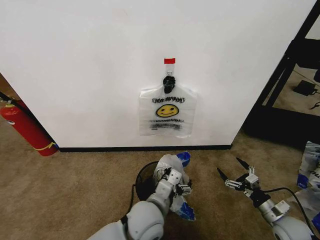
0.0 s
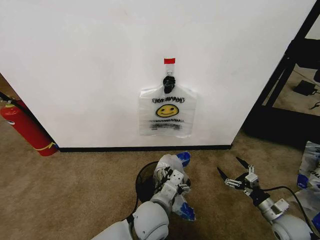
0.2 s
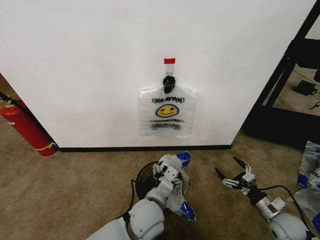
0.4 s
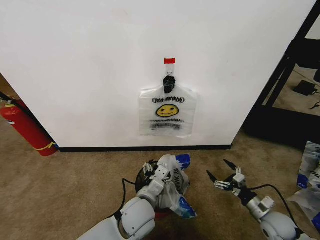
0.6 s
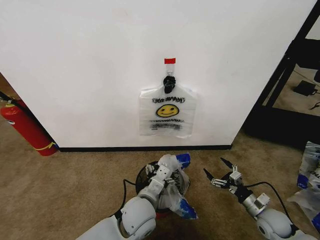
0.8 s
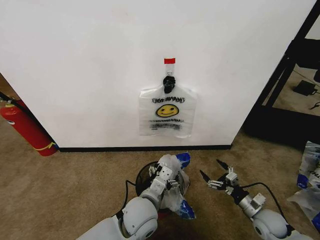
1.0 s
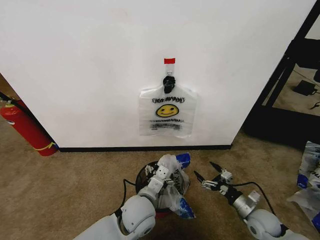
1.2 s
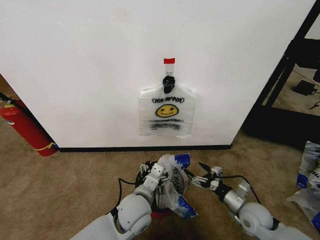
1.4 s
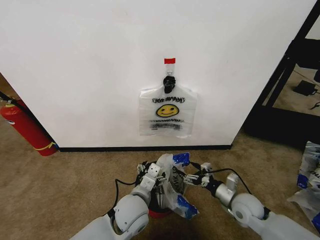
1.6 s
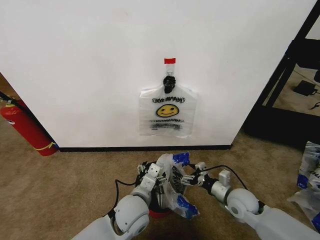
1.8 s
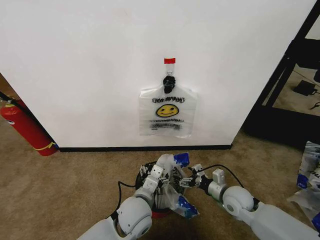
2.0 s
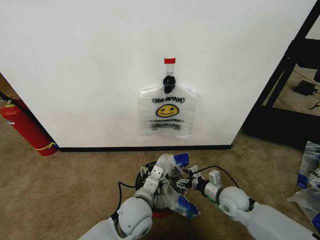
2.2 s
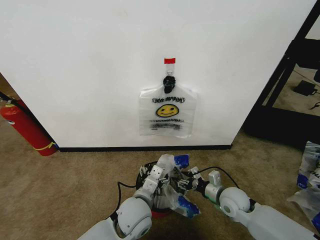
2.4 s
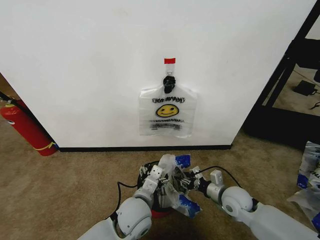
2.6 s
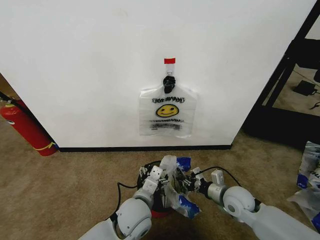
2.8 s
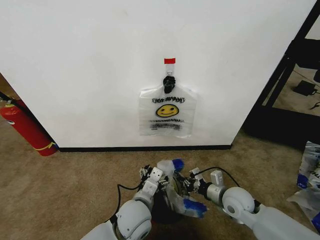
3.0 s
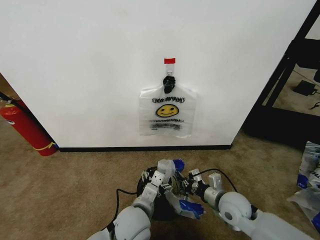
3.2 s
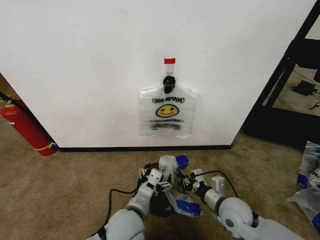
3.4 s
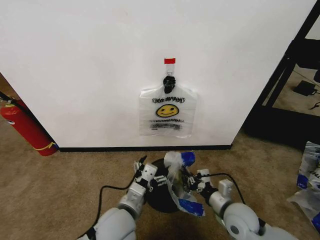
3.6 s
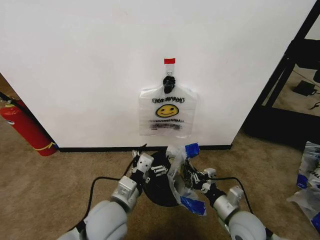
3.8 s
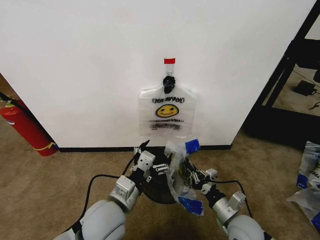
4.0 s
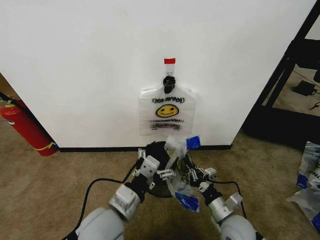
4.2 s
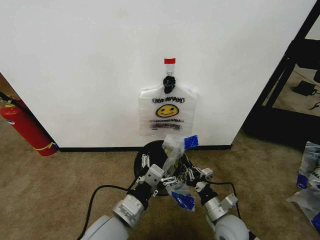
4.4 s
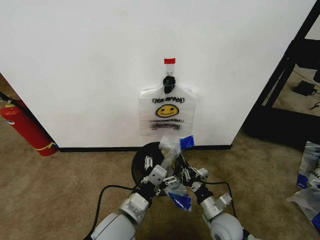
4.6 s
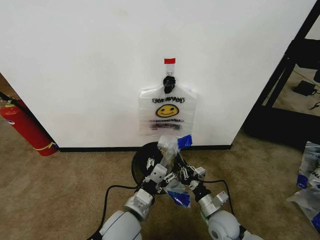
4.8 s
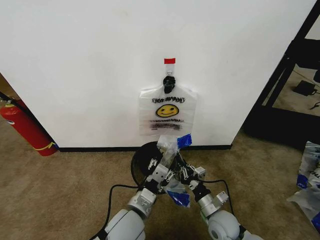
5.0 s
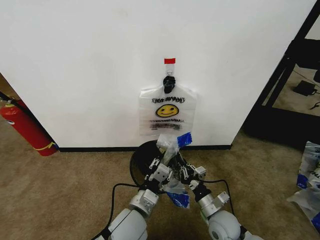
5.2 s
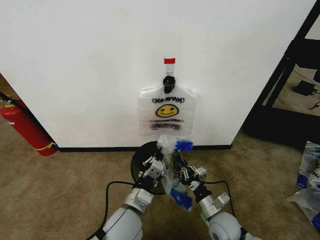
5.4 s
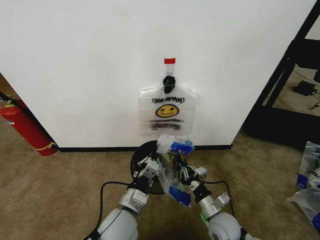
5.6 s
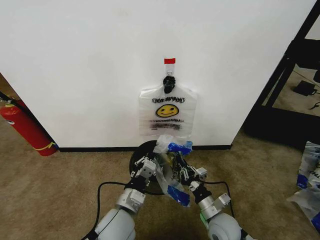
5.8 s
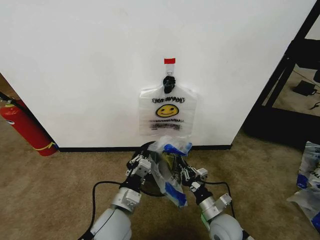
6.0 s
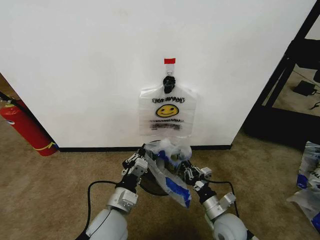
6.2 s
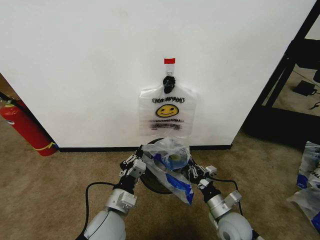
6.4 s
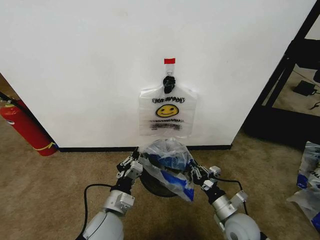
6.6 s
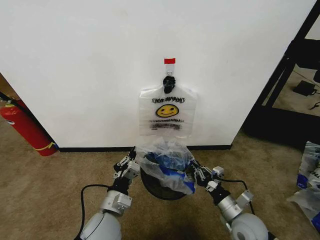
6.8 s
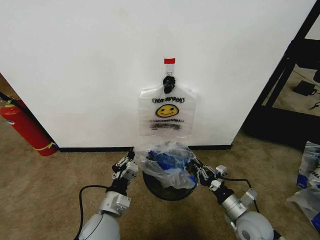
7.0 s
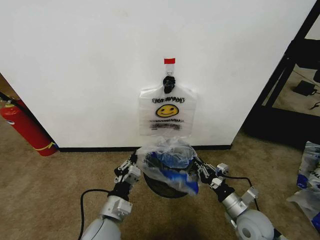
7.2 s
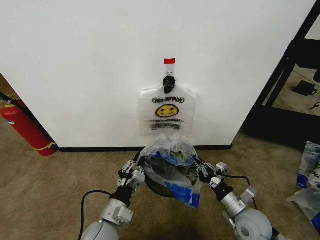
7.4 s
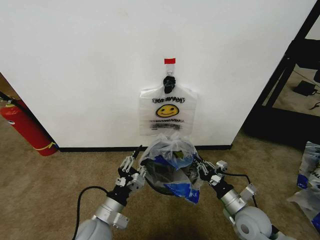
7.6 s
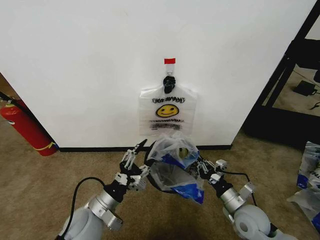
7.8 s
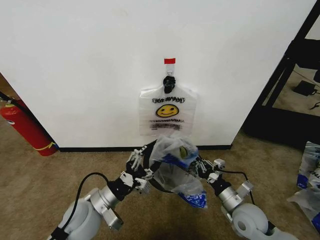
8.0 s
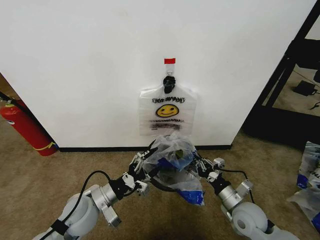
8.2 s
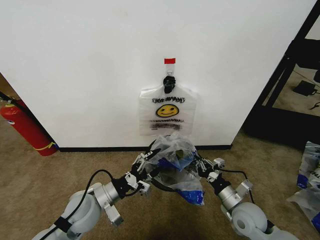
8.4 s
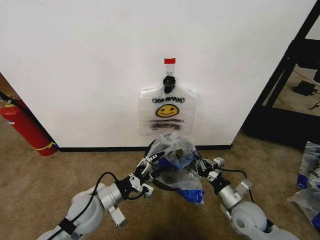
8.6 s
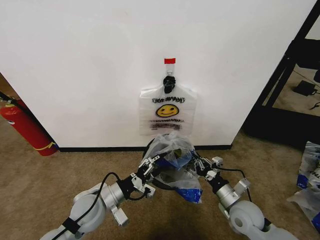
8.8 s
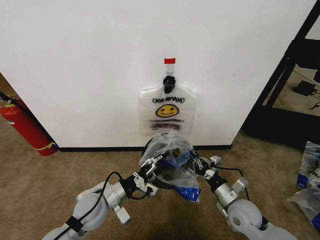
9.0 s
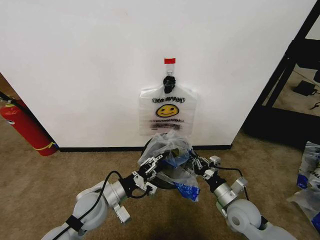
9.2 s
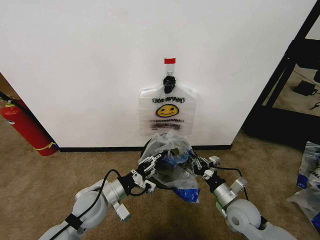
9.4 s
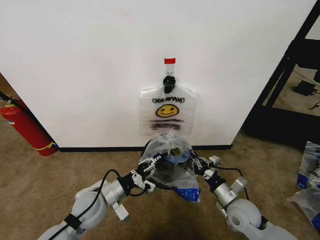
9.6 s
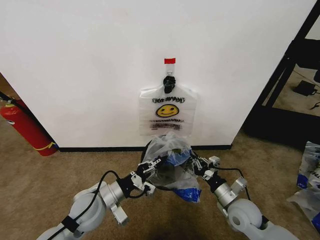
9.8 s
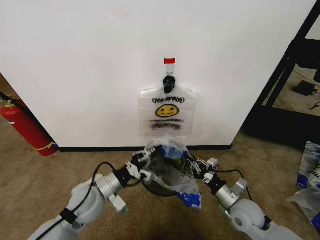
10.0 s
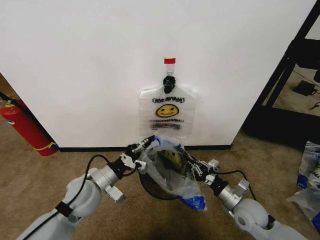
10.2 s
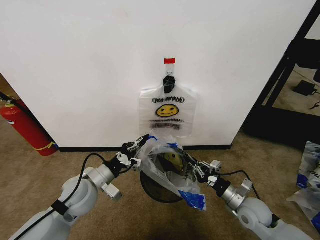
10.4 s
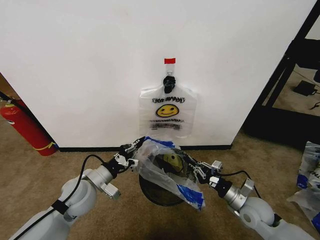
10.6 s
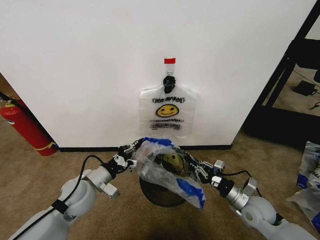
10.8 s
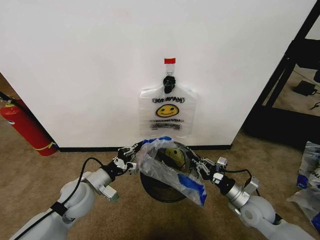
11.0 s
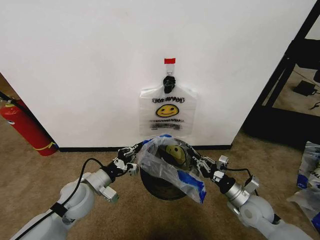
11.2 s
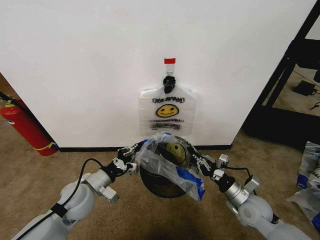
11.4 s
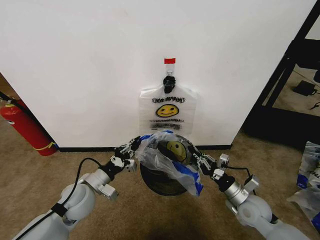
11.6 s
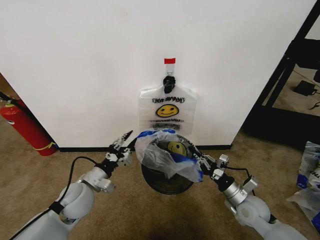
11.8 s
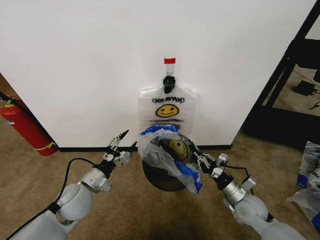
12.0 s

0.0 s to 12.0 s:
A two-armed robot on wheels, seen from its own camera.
Task of the whole recording: Pick up the garbage bag from the wall and place it over the trash bin.
0.0 to 1.6 s: The left gripper ends up approximately 5 cm from where it was. Meanwhile the right gripper moves to the left and forward, about 15 cm.
1.6 to 3.0 s: The right gripper closes its fingers.
3.0 to 4.4 s: The right gripper travels backward by about 10 cm, while the left gripper travels upward, backward and to the left by approximately 10 cm.
4.4 to 6.0 s: The left gripper travels downward by approximately 5 cm, and closes its fingers.
6.0 to 7.6 s: The left gripper is displaced to the left by about 5 cm, and opens its fingers. The right gripper heads to the right, covering some 10 cm.
7.6 to 9.0 s: The left gripper heads forward, covering about 5 cm, and opens.
9.0 to 10.4 s: The left gripper moves approximately 5 cm, and closes up.
10.4 to 12.0 s: The left gripper opens up.

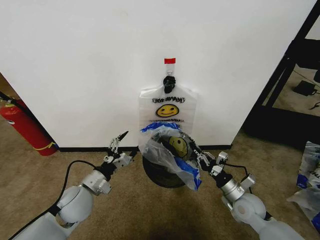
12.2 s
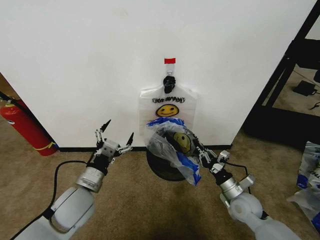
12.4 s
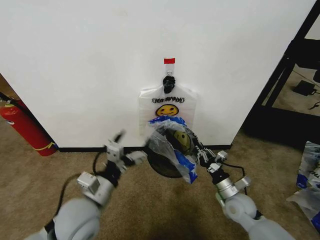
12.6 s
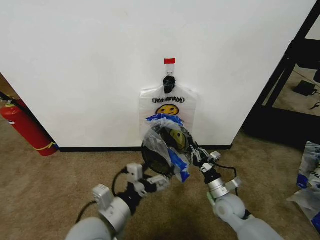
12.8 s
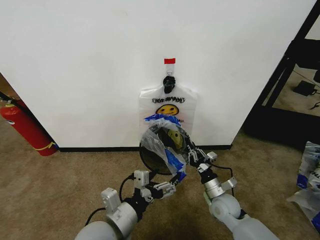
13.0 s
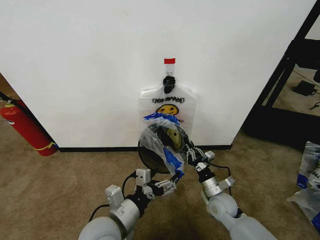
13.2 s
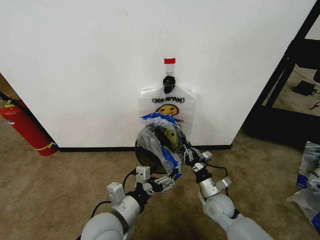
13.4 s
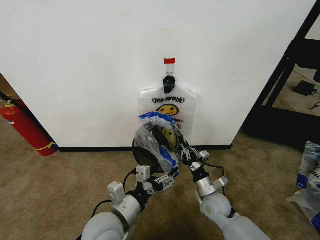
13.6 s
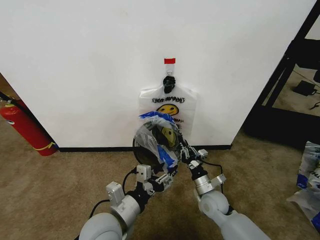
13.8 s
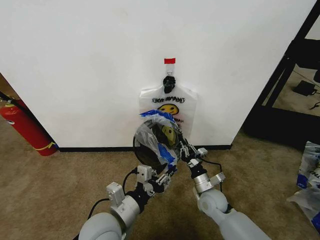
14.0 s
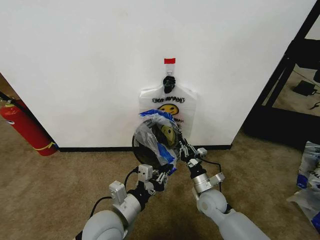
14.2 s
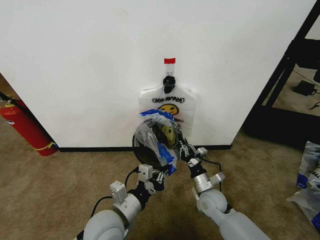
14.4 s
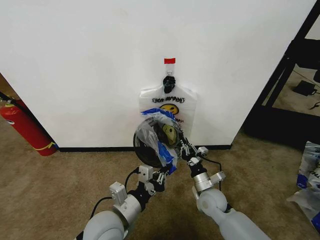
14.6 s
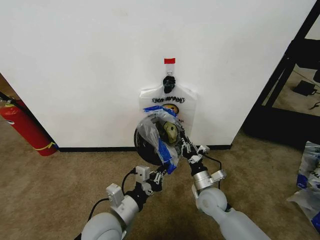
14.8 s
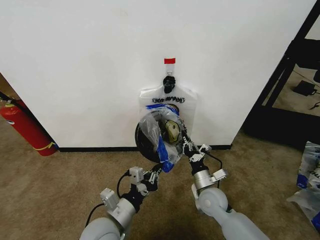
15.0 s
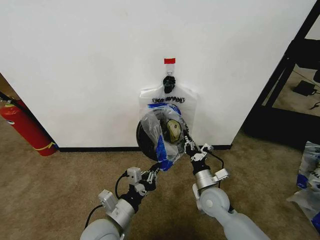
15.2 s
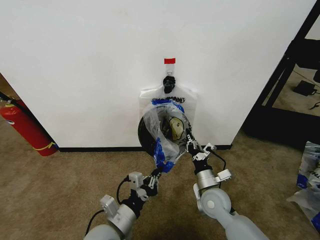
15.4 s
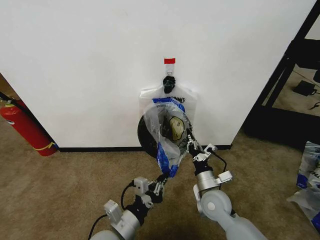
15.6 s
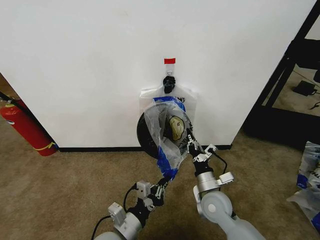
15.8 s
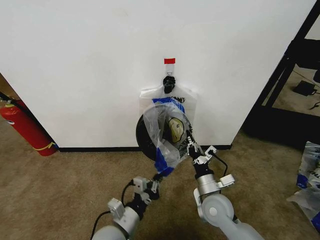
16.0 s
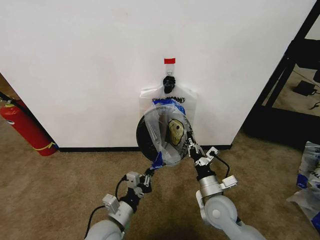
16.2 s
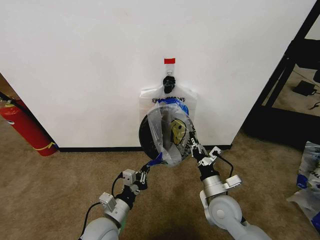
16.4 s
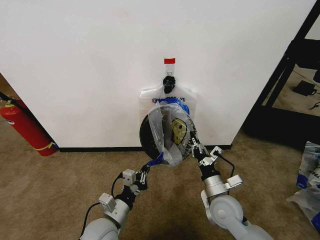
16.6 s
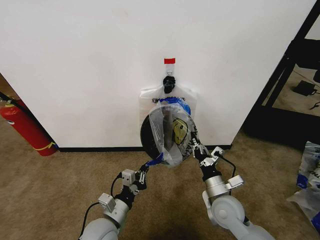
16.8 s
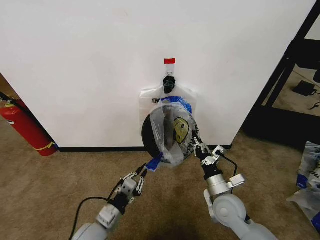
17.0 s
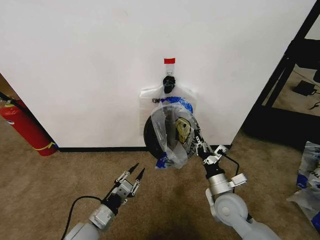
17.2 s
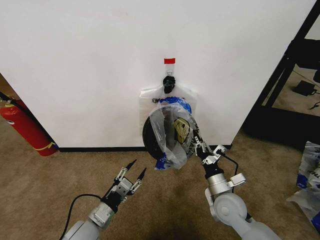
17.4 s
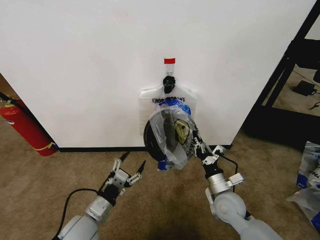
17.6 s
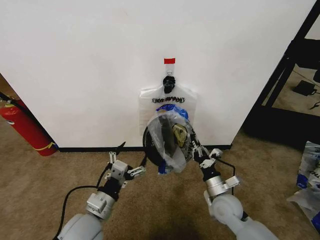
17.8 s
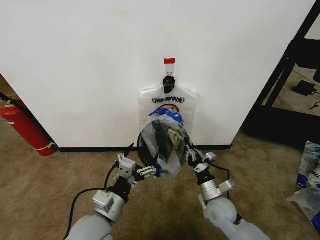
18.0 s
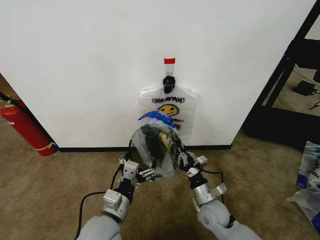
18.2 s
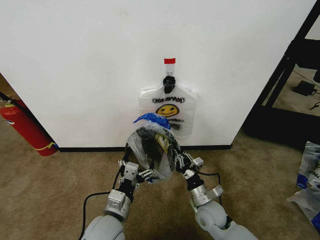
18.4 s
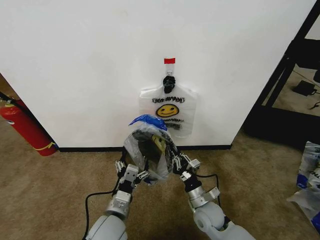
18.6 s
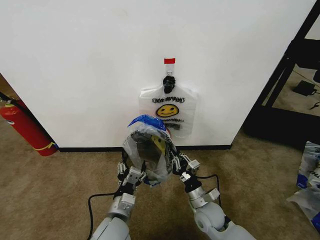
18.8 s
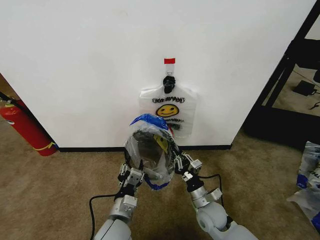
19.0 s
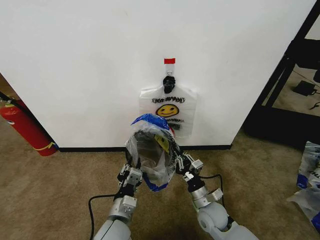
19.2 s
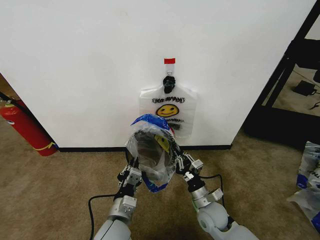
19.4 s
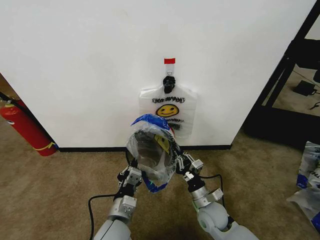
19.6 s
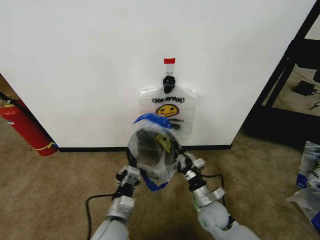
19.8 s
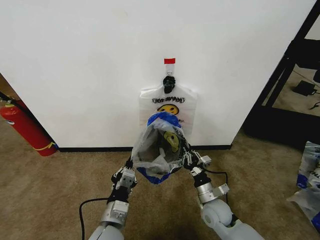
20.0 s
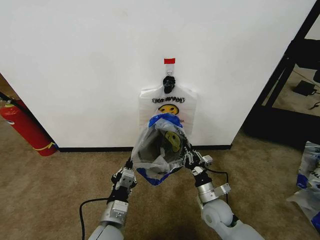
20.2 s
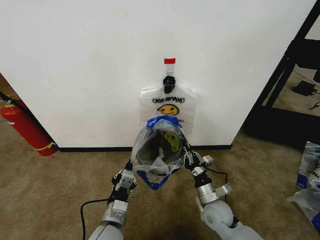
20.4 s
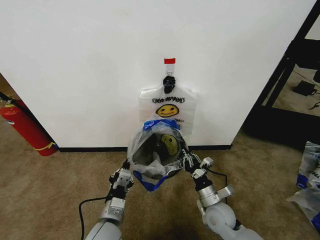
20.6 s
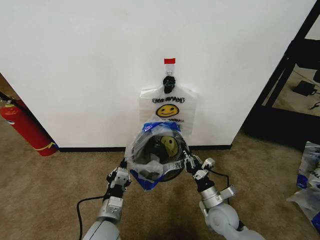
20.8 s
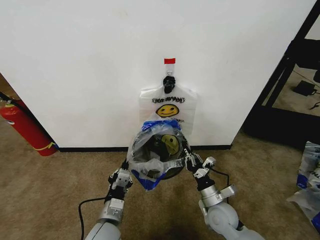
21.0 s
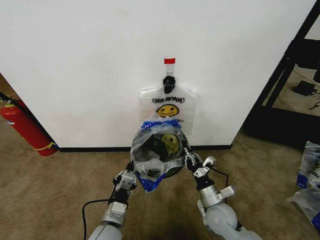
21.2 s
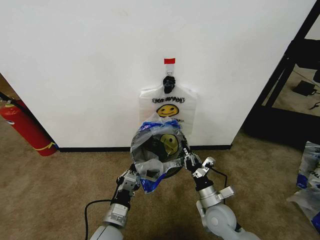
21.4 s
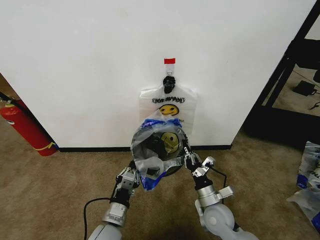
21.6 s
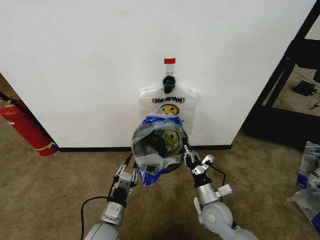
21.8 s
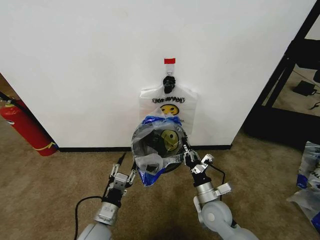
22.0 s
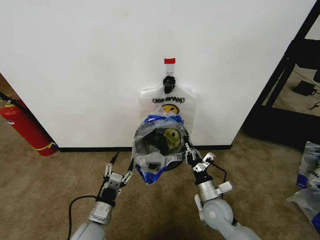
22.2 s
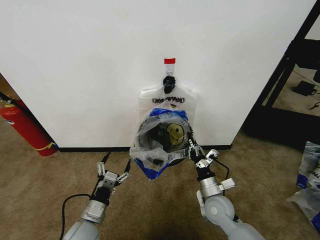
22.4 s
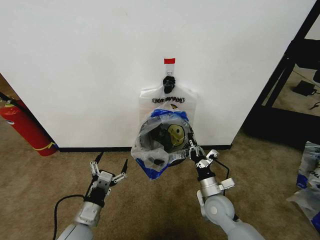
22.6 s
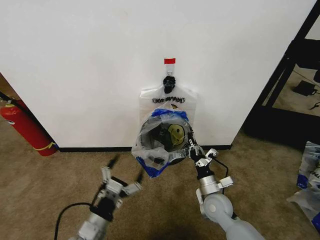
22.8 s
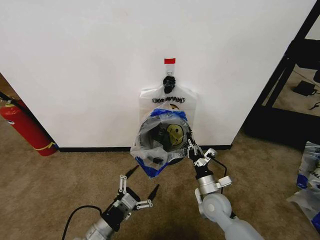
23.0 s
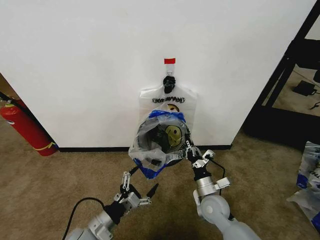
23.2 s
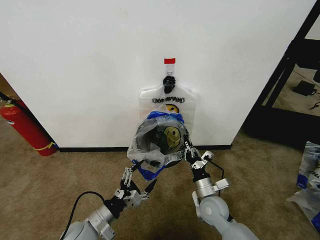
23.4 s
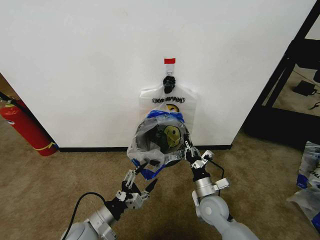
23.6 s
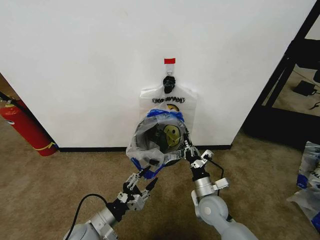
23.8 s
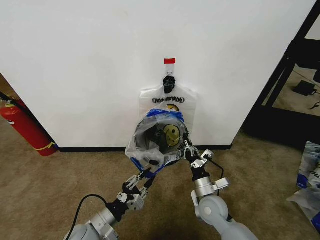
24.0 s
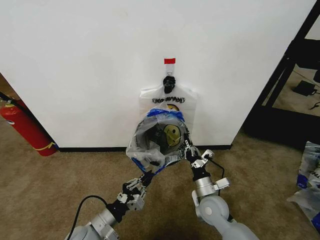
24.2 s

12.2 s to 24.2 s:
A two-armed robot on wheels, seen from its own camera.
Task of the whole recording: Pick up the garbage bag from the wall and place it over the trash bin.
12.2 to 13.8 s: The right gripper travels to the left by roughly 10 cm. Meanwhile the left gripper goes roughly 15 cm to the right, backward and upward.
13.8 to 15.2 s: The right gripper ends up about 5 cm from where it was. Meanwhile the left gripper closes its fingers.
15.2 to 16.6 s: The right gripper moves roughly 5 cm, while the left gripper travels downward by some 5 cm.
16.6 to 18.2 s: The right gripper is displaced downward by about 5 cm. The left gripper is displaced upward by about 5 cm, and opens.
18.2 to 19.8 s: The left gripper closes.
21.2 to 22.6 s: The left gripper heads to the left, covering roughly 10 cm, and opens its fingers.
22.6 to 24.2 s: The left gripper closes its fingers.
